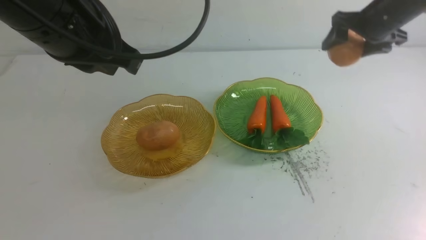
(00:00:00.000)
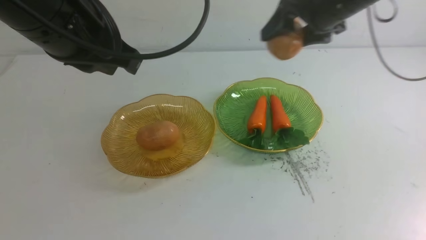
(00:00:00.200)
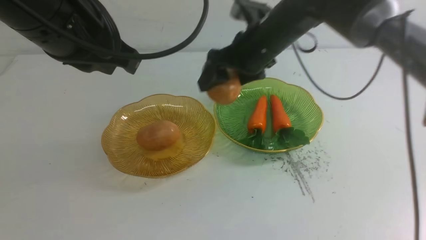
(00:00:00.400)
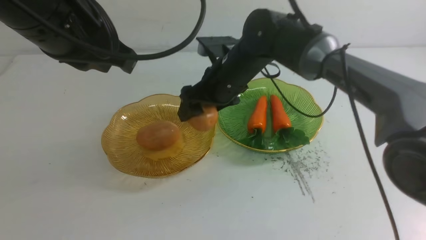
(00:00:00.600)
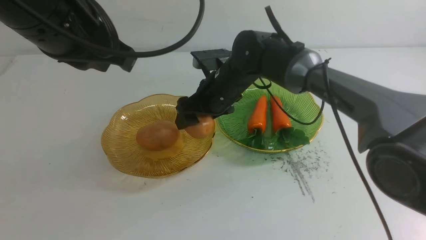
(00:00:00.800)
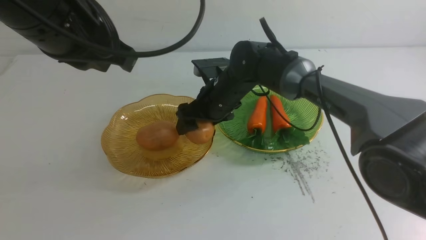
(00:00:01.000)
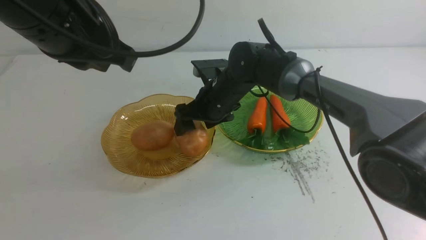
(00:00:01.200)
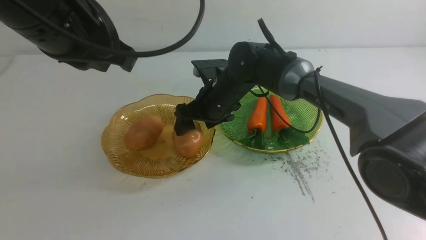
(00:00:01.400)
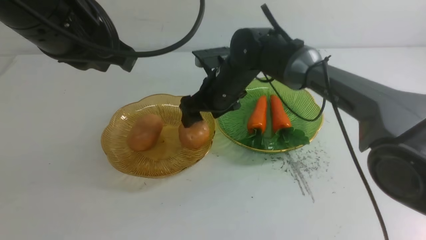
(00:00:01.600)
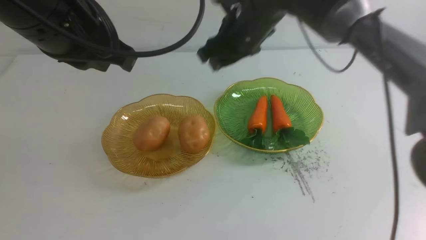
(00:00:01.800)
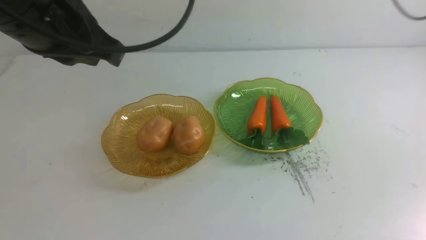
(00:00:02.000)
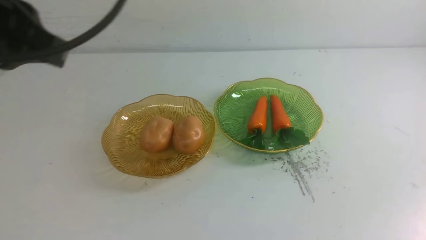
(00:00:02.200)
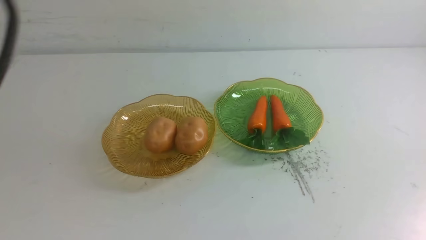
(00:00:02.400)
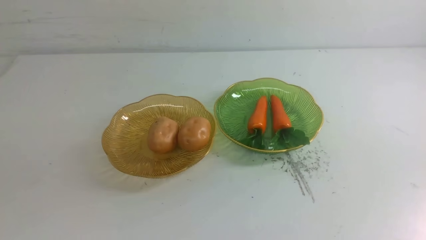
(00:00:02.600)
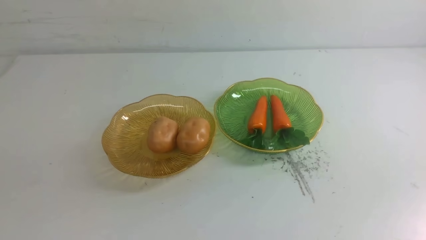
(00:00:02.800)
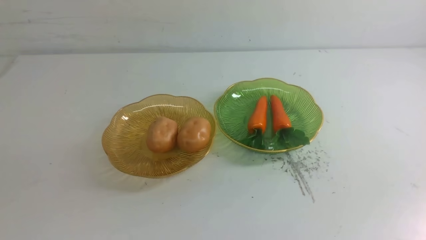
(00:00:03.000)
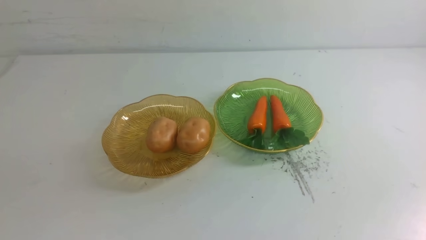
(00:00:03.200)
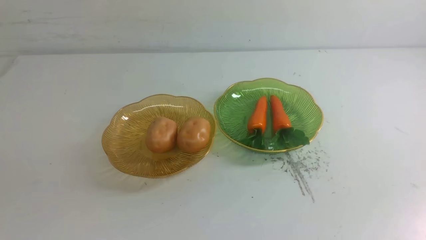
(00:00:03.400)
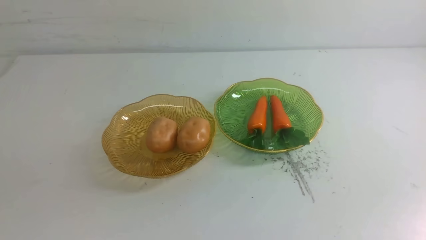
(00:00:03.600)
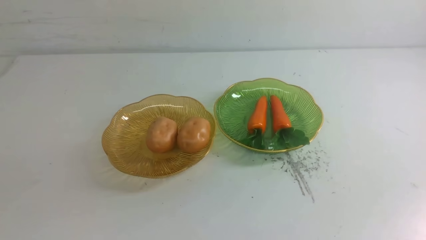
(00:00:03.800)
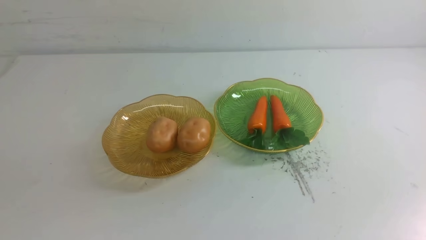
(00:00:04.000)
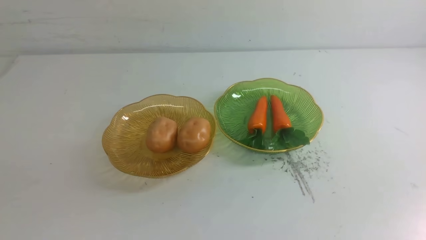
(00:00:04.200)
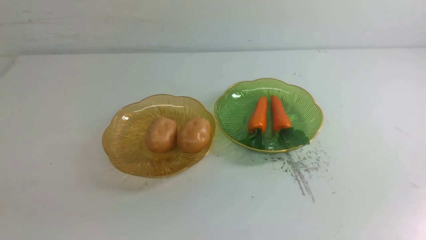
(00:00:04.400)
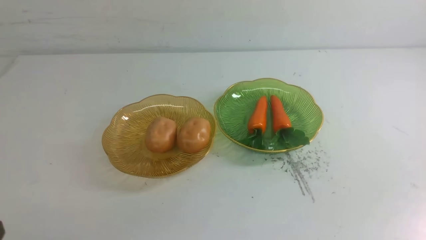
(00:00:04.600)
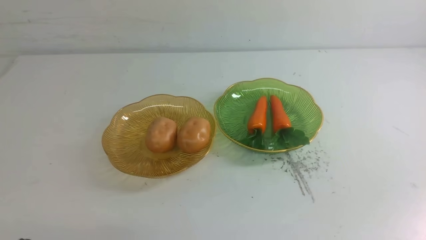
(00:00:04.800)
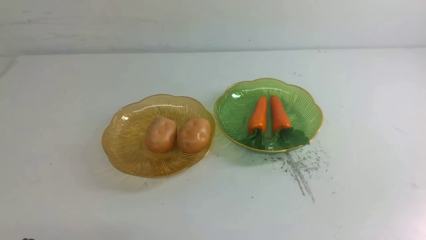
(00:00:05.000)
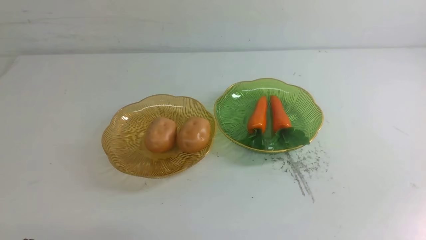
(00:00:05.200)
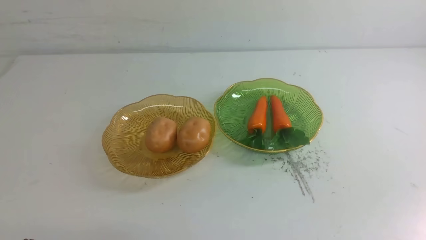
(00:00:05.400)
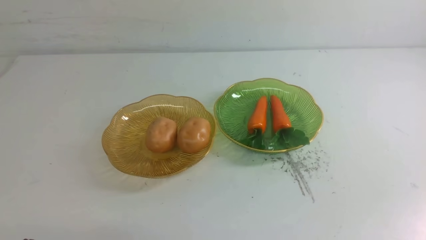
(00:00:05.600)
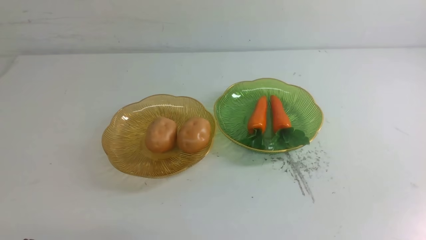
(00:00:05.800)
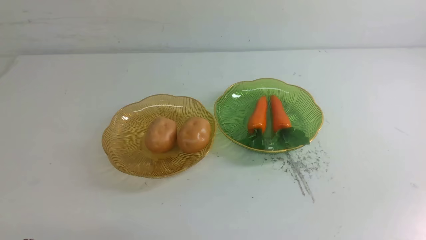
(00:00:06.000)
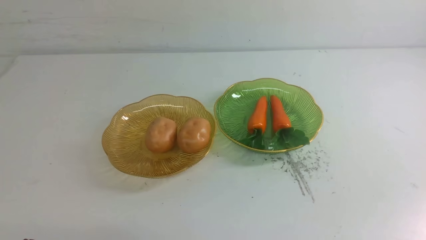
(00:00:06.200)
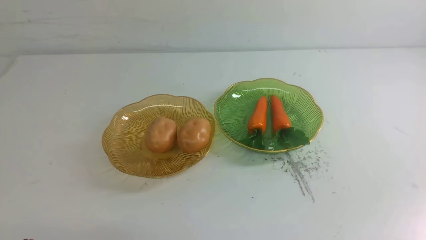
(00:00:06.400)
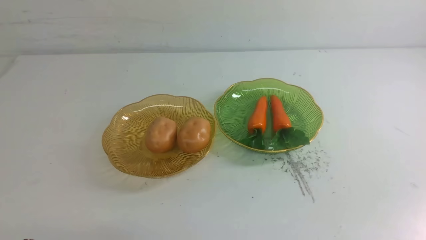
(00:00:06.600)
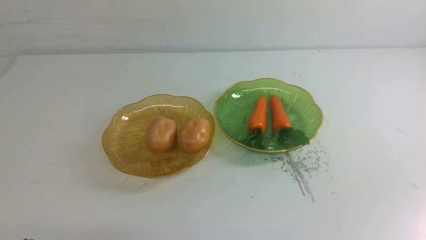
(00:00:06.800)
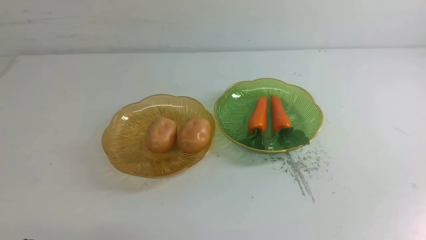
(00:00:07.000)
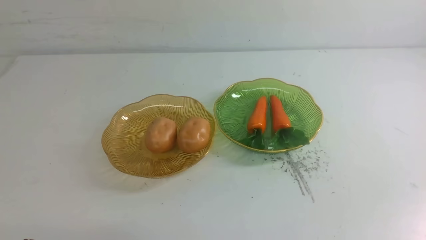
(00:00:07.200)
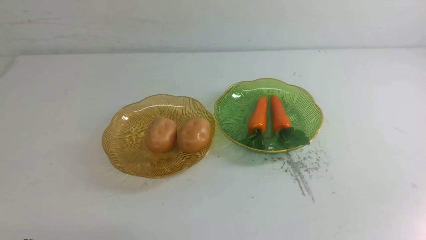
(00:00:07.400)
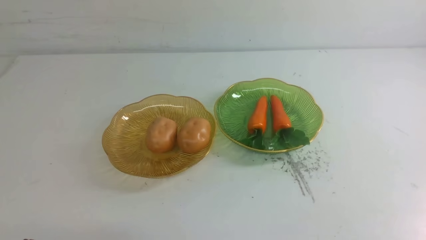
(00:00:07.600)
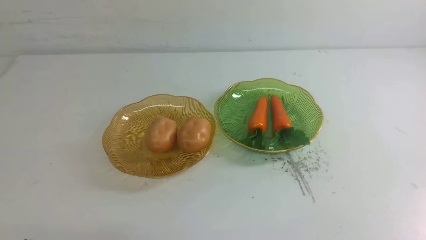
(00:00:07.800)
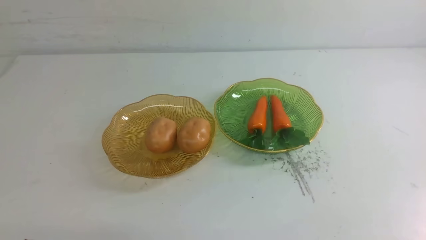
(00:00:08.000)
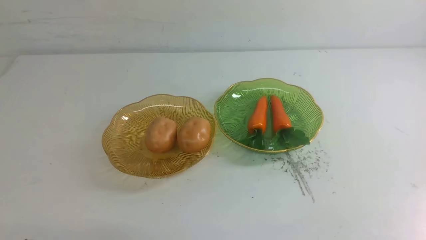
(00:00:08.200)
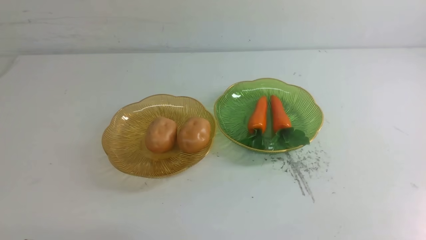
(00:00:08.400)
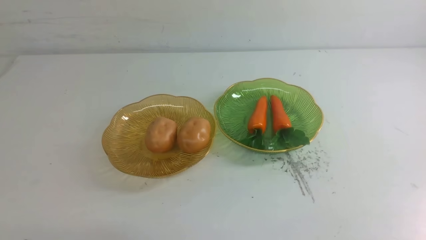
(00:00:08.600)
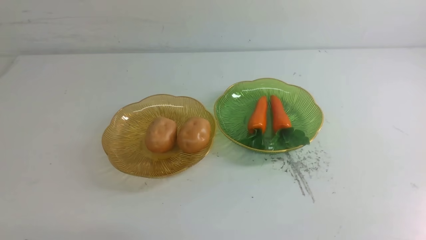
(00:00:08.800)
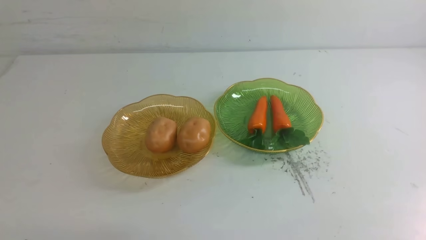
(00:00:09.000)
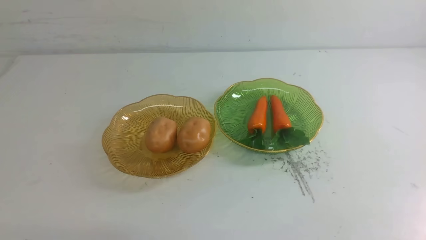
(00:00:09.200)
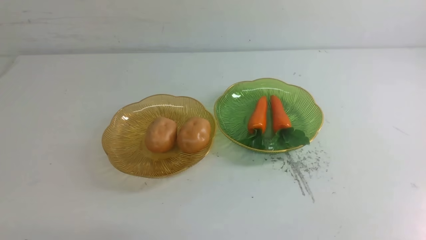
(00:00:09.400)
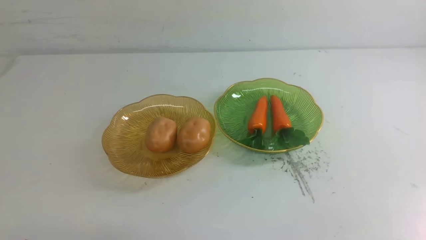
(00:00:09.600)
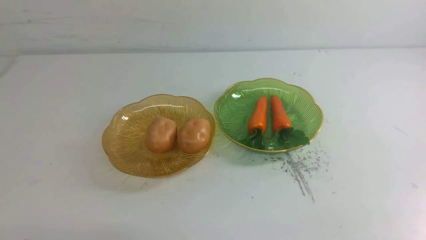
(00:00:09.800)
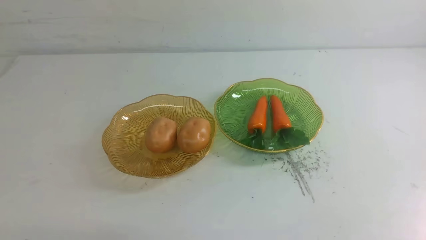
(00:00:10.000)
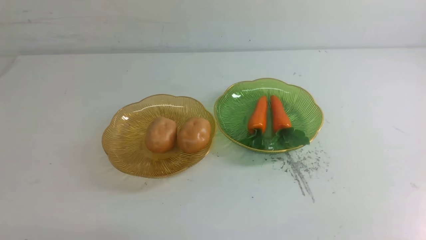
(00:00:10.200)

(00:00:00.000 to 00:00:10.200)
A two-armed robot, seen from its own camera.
00:00:00.000 - 00:00:01.400: The right gripper is displaced to the left and downward by approximately 25 cm.
00:00:01.400 - 00:00:03.000: The right gripper moves backward, to the right and upward, some 60 cm, and closes, while the left gripper shifts some 20 cm backward and to the left.
00:00:08.800 - 00:00:10.200: Both grippers stay put.
